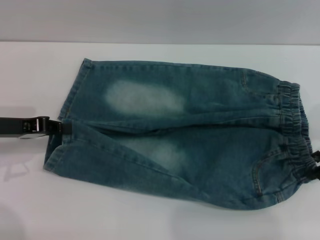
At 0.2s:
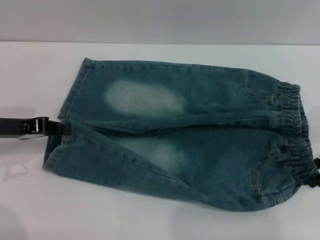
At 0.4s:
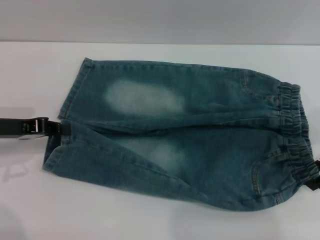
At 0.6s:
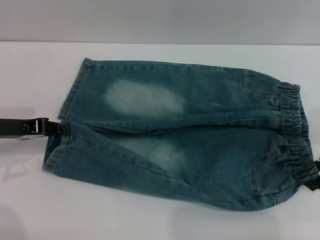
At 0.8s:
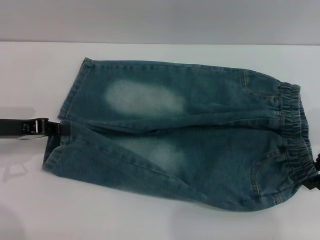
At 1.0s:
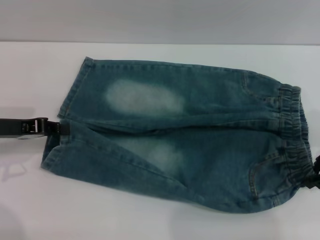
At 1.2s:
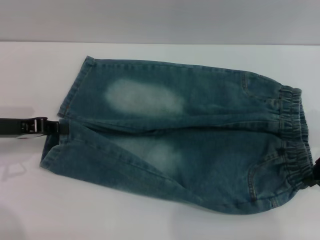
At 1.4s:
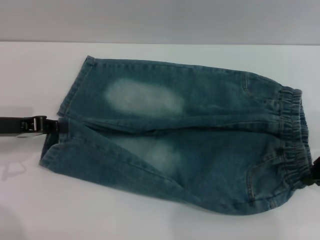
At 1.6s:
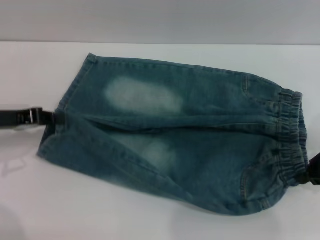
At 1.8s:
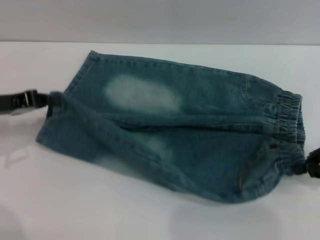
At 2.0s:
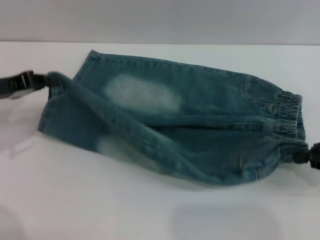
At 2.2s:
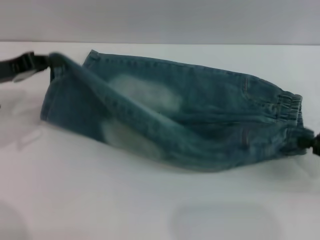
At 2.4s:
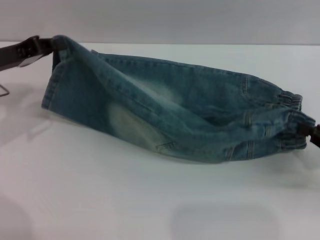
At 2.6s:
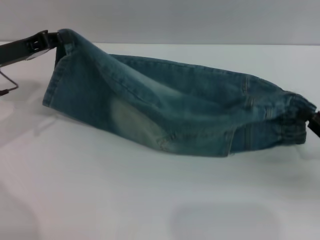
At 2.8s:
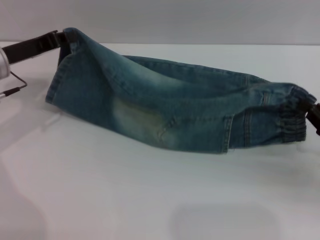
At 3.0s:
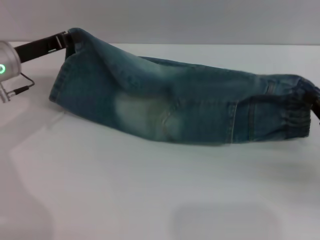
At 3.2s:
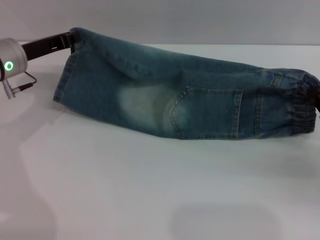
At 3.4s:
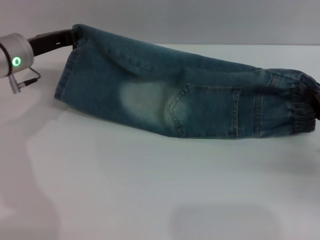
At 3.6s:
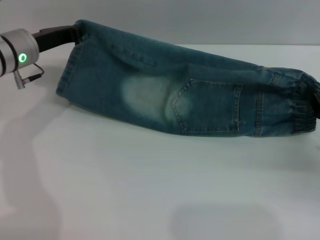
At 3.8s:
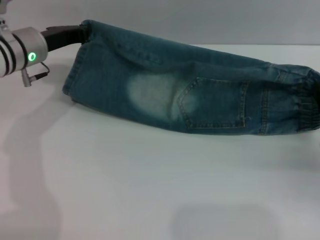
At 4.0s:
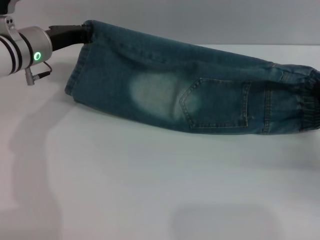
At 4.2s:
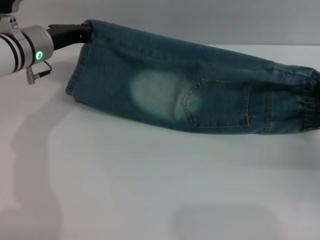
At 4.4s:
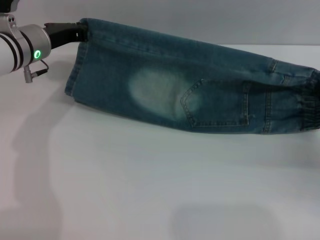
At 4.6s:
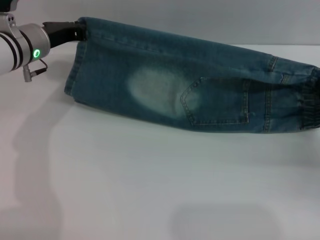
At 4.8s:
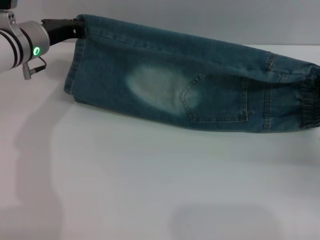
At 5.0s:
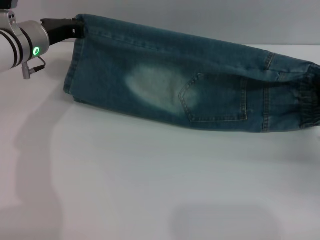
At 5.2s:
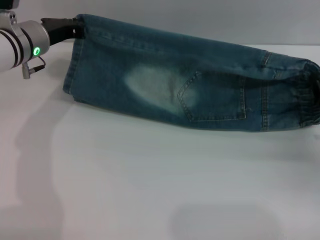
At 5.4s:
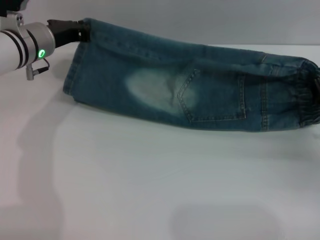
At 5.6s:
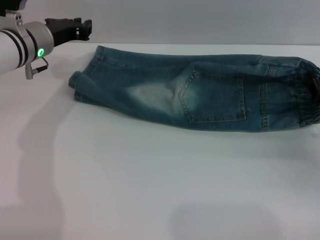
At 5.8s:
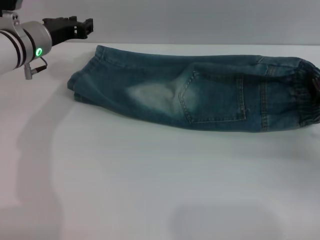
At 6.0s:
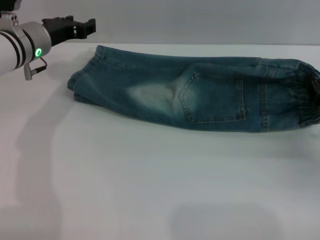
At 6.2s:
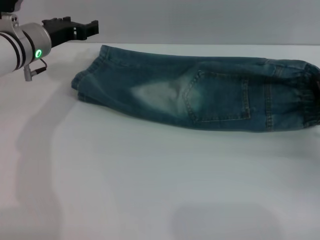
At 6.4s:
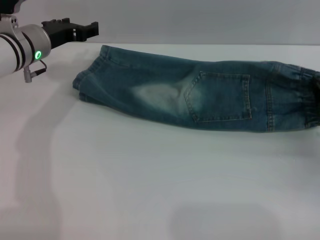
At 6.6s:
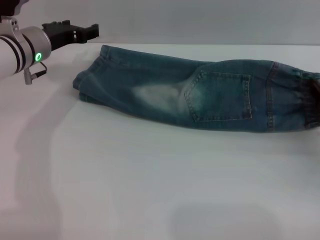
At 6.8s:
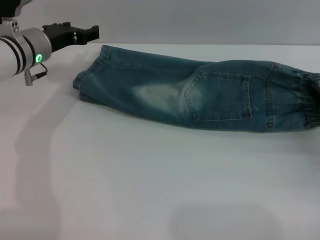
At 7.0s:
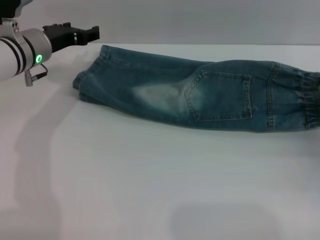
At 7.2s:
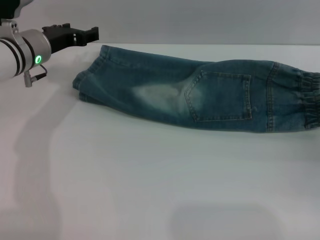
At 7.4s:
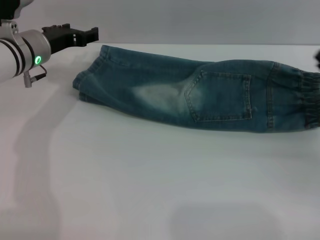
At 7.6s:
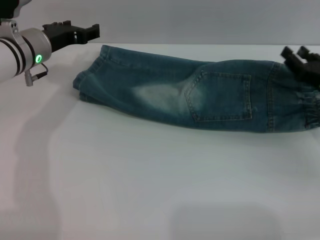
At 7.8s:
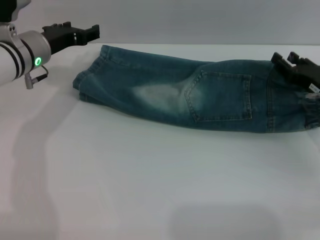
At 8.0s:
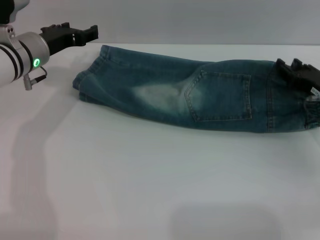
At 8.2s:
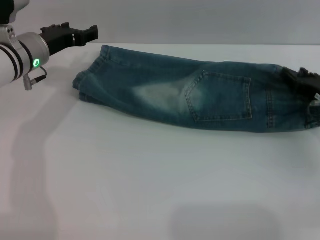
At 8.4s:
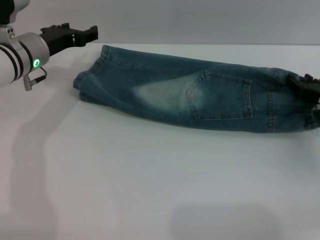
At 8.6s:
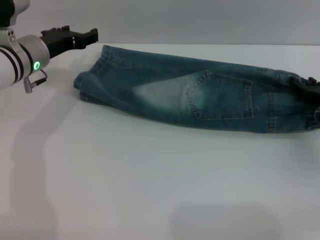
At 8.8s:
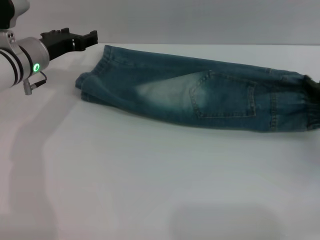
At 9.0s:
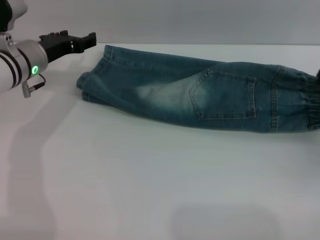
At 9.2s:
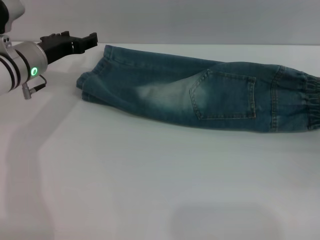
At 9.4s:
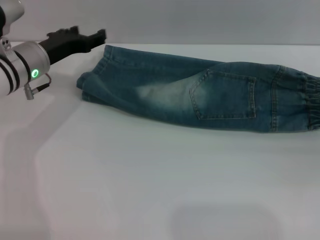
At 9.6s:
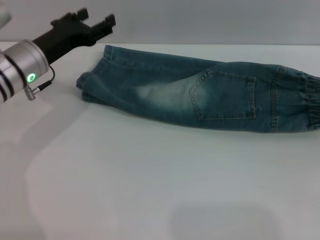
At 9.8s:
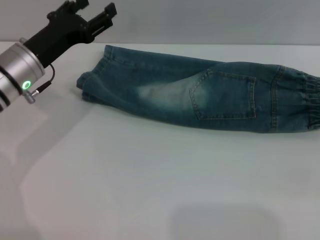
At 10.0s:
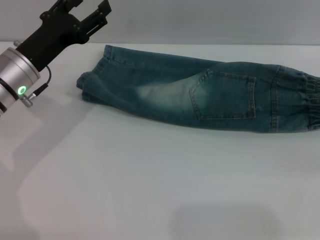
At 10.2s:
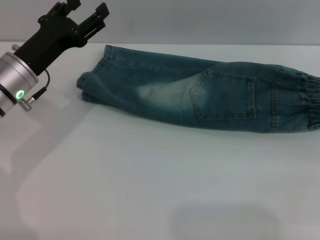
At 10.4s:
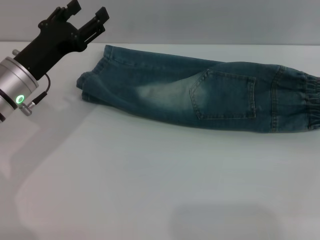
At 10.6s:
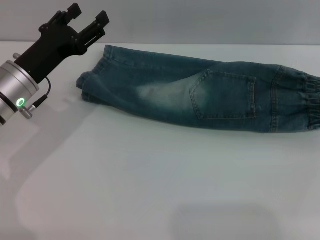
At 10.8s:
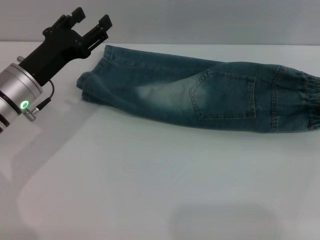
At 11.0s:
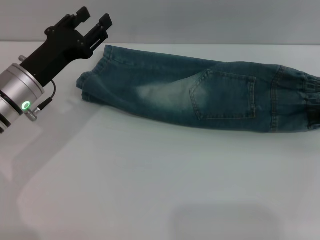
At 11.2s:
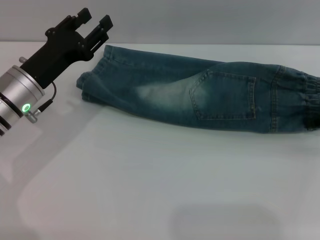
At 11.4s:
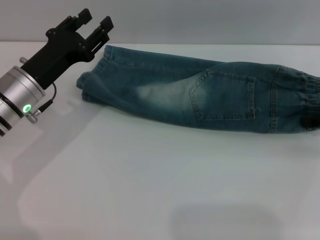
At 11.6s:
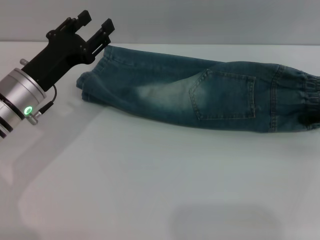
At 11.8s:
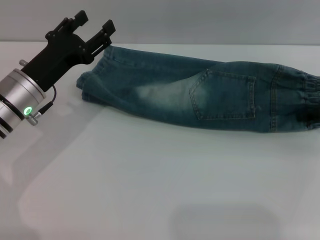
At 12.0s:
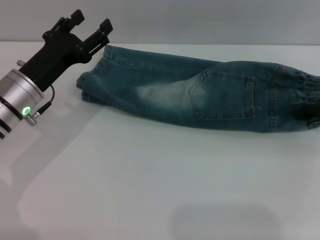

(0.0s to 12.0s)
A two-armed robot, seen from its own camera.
Step, 0.0s - 7.2s: Fold the bottom of the pants upward with both grippers.
0.0s - 1.6s: The right gripper closes up.
1.6s - 3.0s: The left gripper travels forward and to the right by some 10 cm; the right gripper shifts about 10 cm downward.
3.0s - 4.4s: The left gripper changes place by approximately 5 cm.
4.4s - 6.0s: The left gripper opens up.
6.0s - 7.6s: The left gripper opens up. The right gripper opens up.
9.0s - 10.4s: The left gripper moves backward, approximately 5 cm. Meanwhile the right gripper is displaced upward by roughly 15 cm.

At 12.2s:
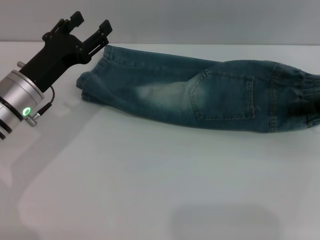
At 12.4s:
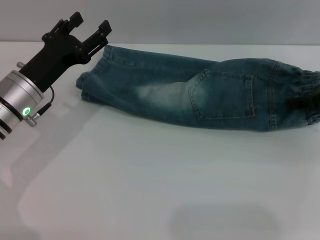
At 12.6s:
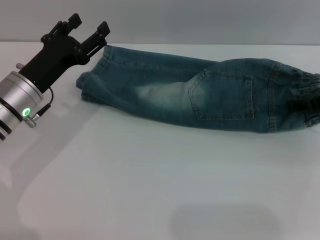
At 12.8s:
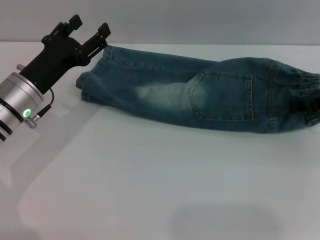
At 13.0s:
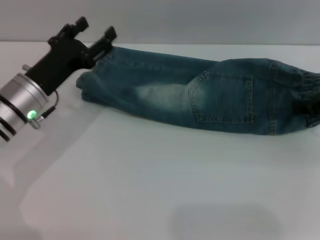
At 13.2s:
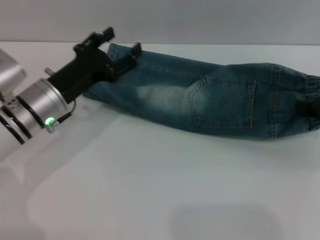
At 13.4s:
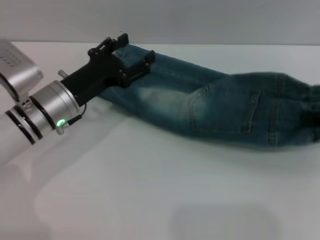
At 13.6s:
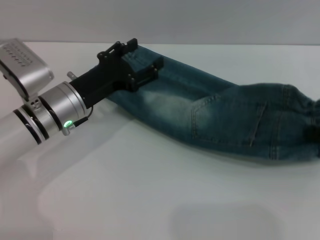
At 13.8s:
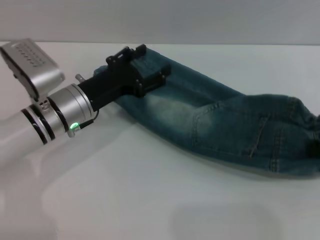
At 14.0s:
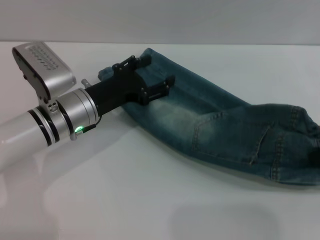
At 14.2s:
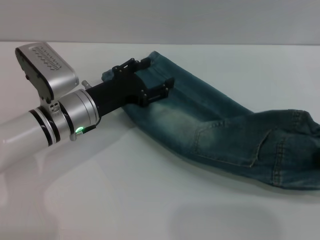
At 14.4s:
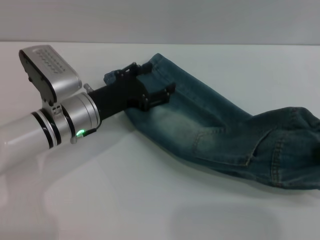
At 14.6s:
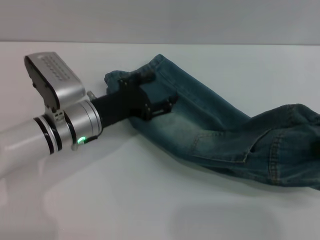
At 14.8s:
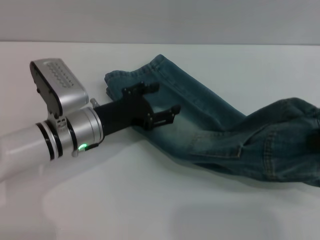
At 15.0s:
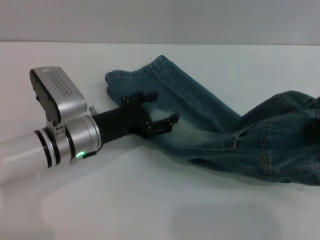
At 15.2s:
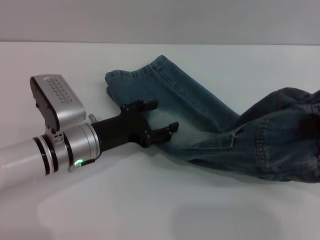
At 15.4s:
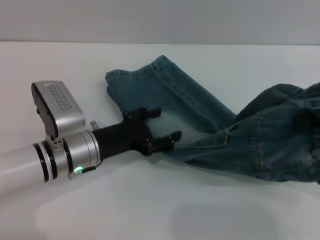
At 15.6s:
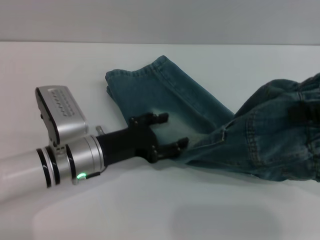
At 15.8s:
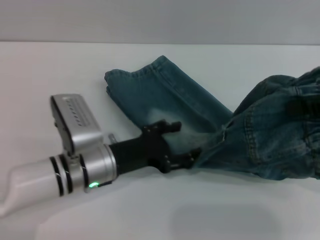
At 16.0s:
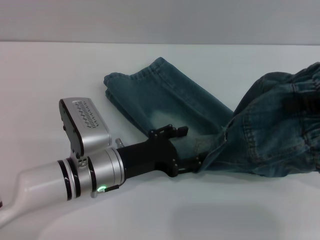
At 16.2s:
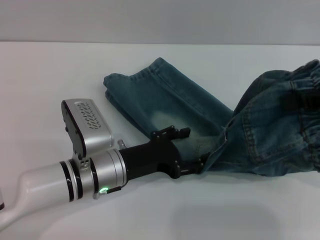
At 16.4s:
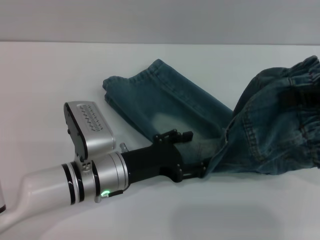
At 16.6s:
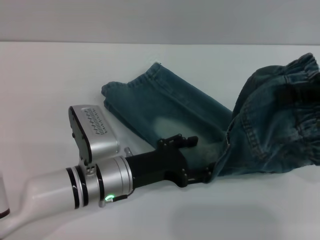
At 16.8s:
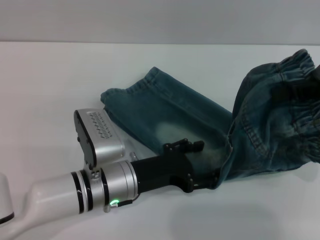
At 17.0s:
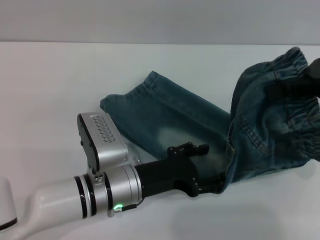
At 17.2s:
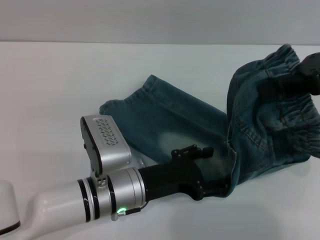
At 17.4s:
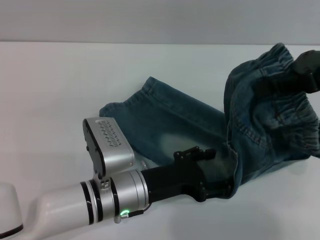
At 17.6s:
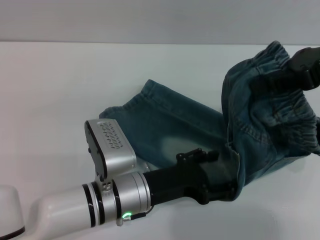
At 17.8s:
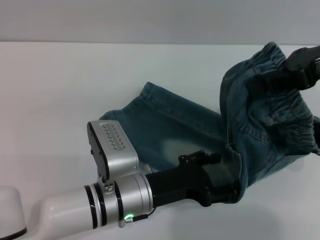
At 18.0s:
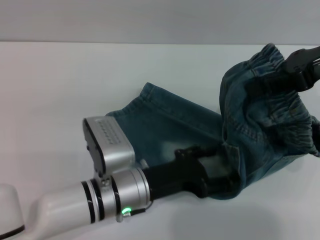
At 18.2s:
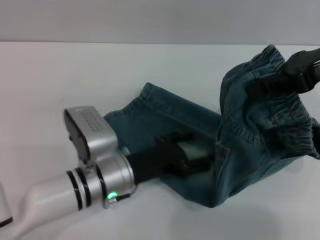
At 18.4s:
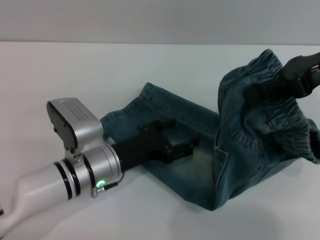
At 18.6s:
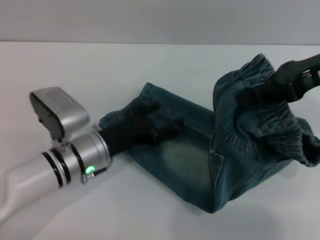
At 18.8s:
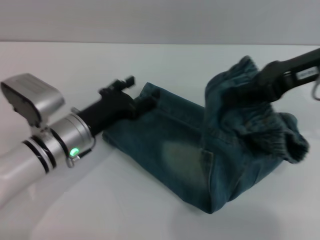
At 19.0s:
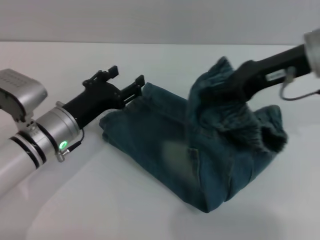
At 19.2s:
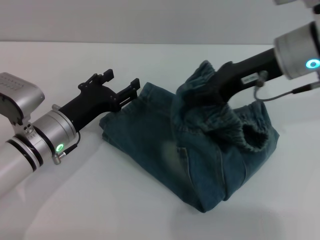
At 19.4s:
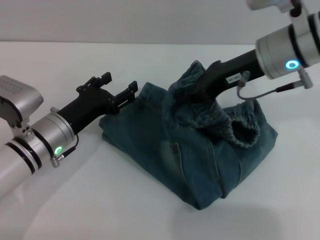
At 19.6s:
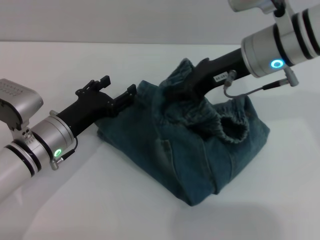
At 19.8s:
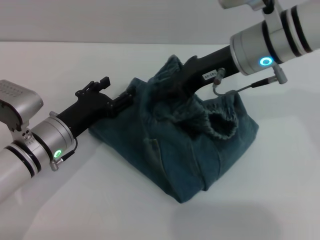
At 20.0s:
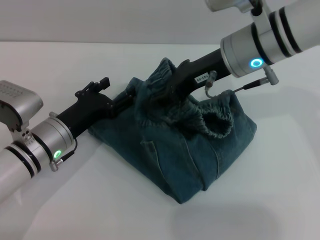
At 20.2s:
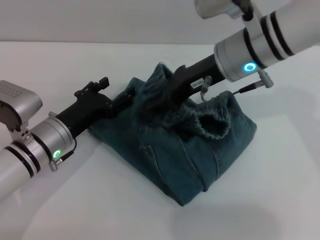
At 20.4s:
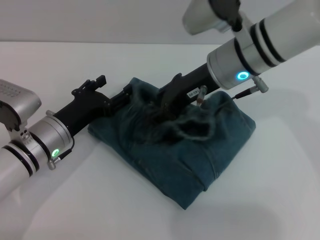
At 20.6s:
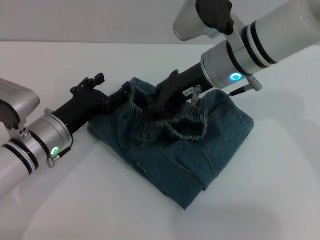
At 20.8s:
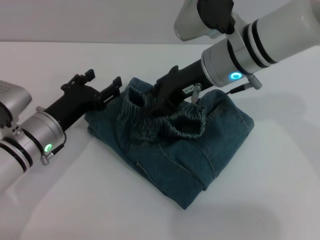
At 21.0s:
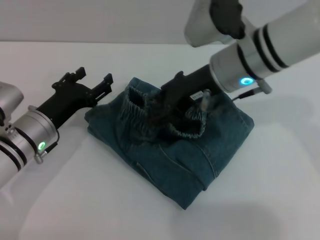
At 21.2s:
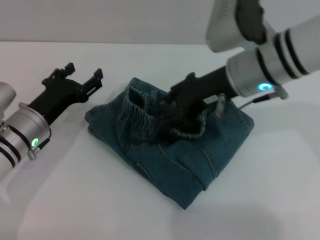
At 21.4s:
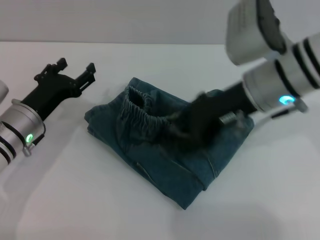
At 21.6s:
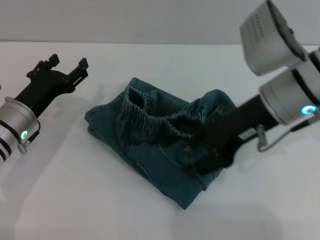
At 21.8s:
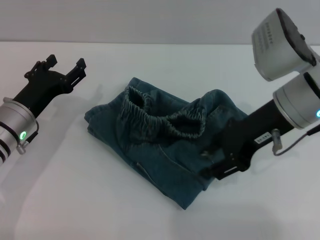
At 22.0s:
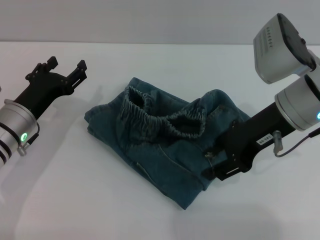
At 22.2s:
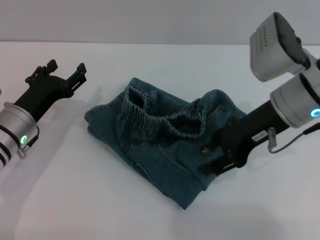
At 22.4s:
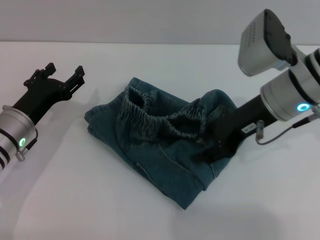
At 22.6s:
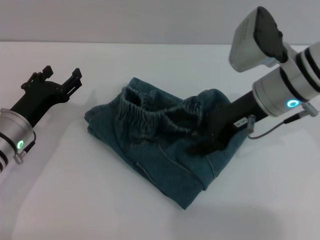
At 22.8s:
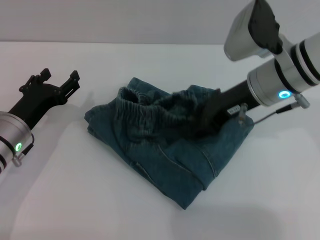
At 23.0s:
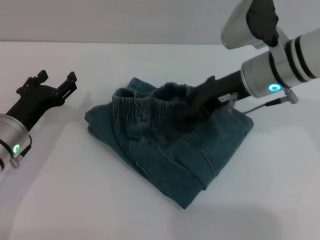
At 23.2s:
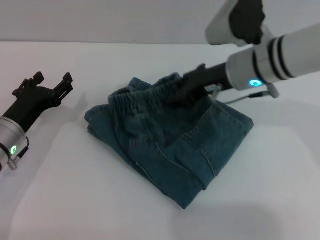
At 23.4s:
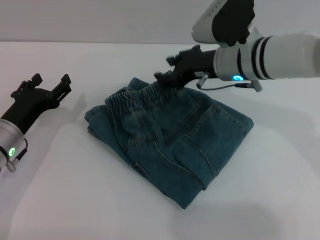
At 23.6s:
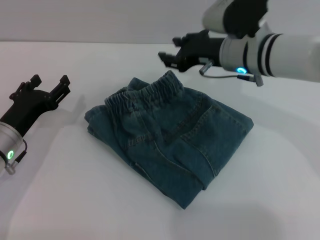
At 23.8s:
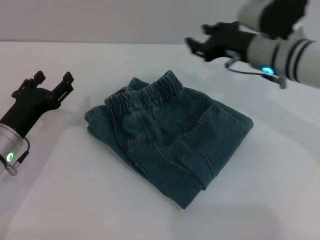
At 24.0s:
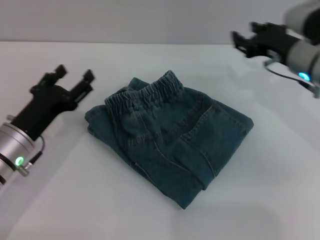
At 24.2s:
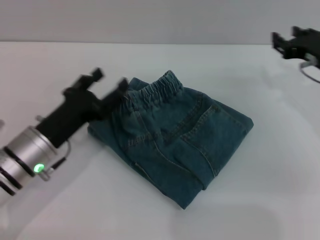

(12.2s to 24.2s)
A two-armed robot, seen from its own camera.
Step, 12.2s - 23.4s: Fold the pants from right to left with the right gripper.
12.2s - 13.8s: The right gripper travels backward and upward by about 10 cm, and closes up. The left gripper shifts roughly 5 cm to the right.
13.8s - 15.2s: The right gripper moves upward, approximately 5 cm.
15.2s - 16.6s: The left gripper moves roughly 5 cm.
16.6s - 18.2s: The right gripper changes place by approximately 5 cm.
18.2s - 19.8s: The left gripper goes approximately 10 cm to the left. Meanwhile the right gripper is displaced to the left and downward by some 15 cm.
19.8s - 21.2s: The right gripper opens.
22.6s - 24.2s: The right gripper is displaced to the right by about 10 cm; the left gripper ends up about 5 cm from where it was.
